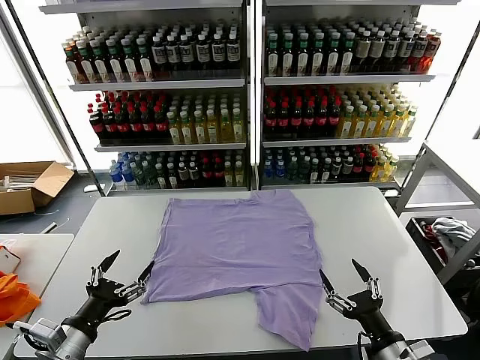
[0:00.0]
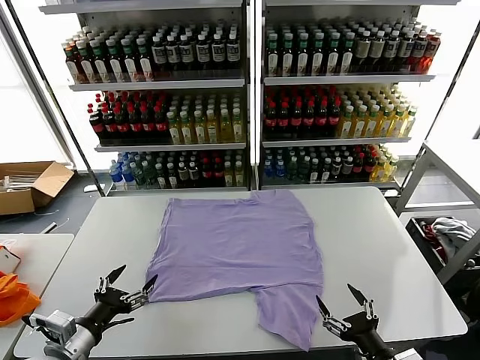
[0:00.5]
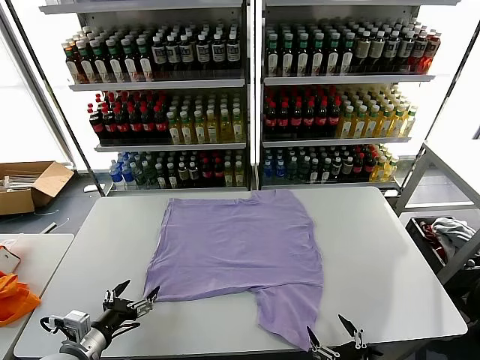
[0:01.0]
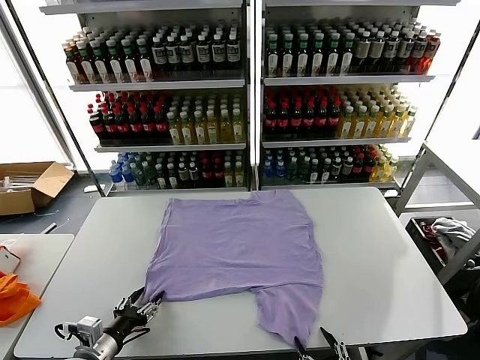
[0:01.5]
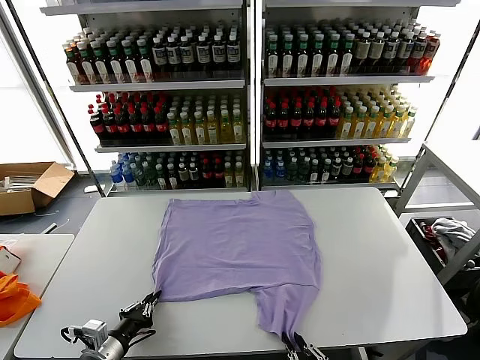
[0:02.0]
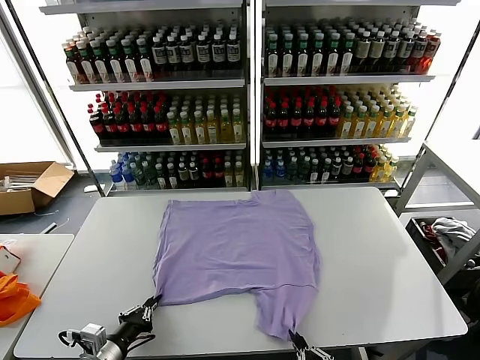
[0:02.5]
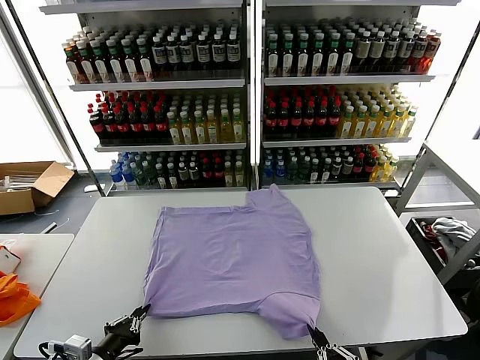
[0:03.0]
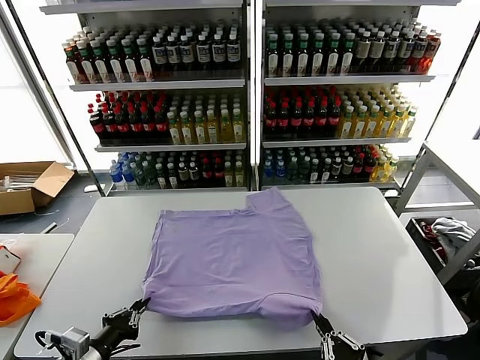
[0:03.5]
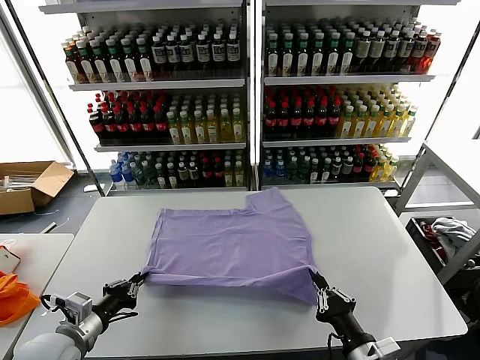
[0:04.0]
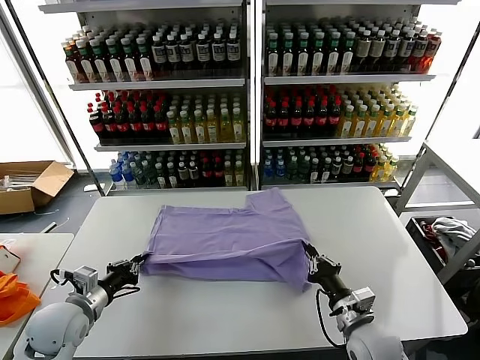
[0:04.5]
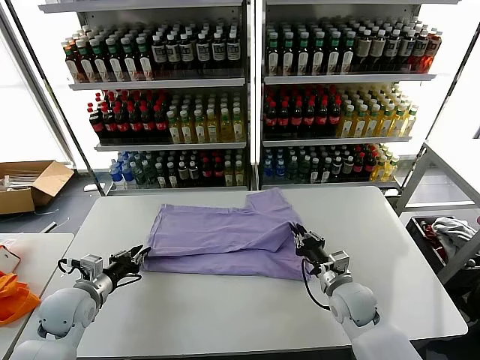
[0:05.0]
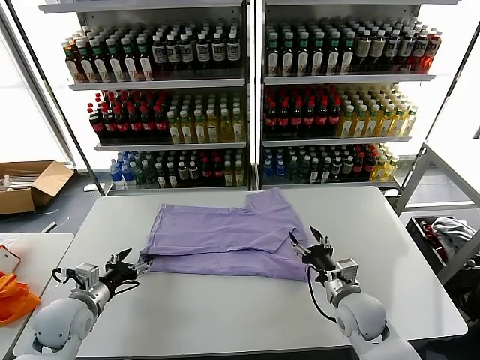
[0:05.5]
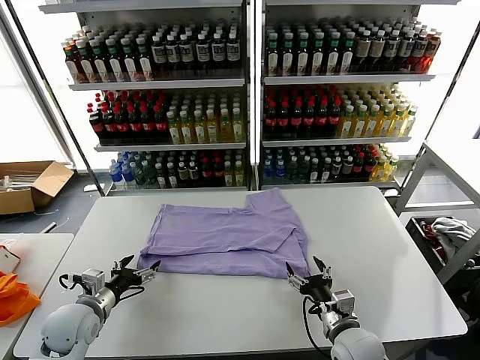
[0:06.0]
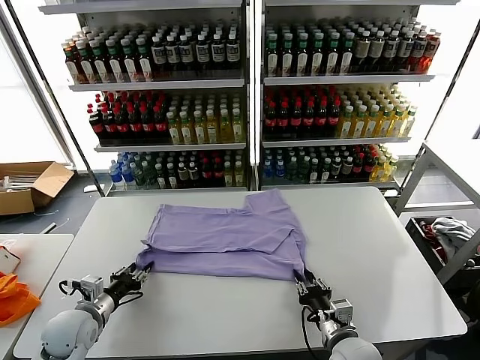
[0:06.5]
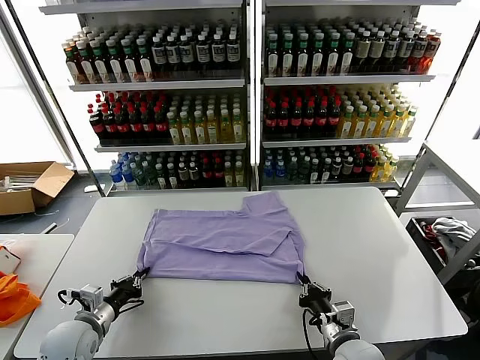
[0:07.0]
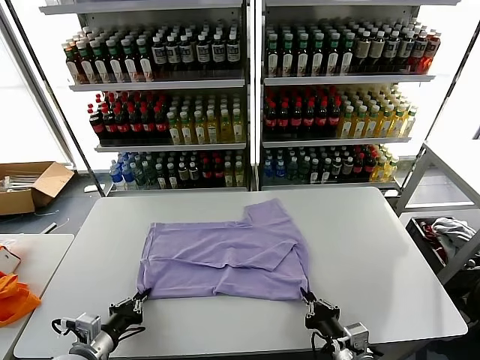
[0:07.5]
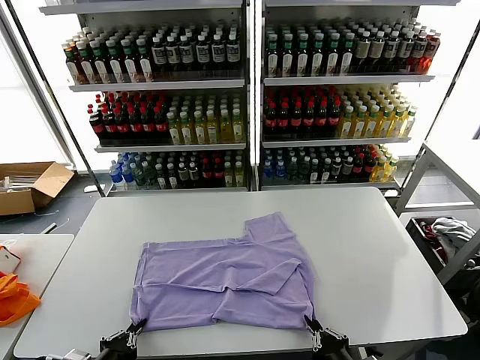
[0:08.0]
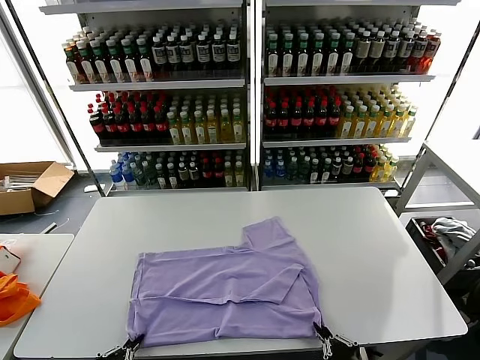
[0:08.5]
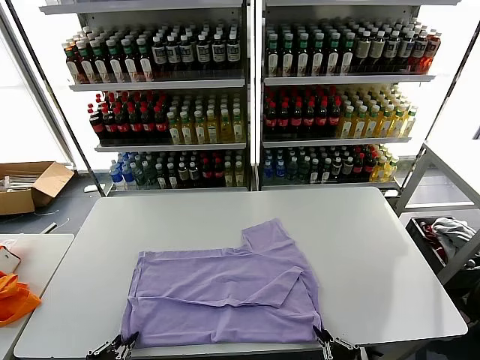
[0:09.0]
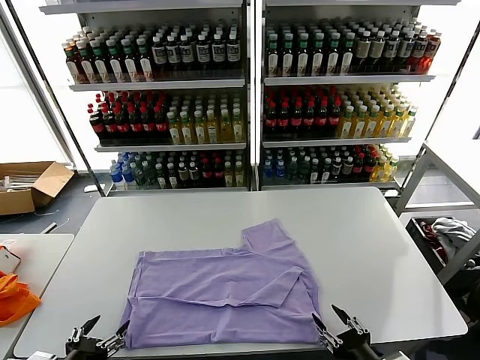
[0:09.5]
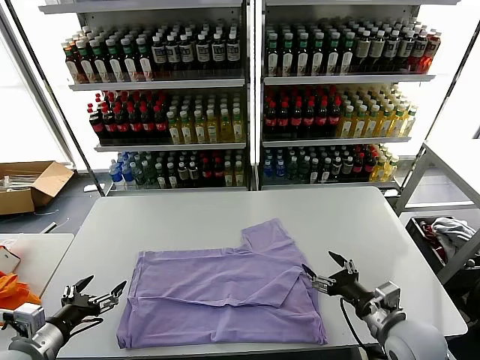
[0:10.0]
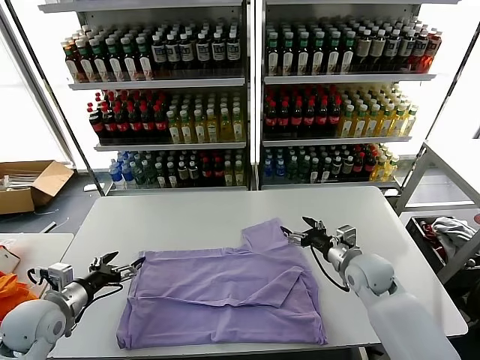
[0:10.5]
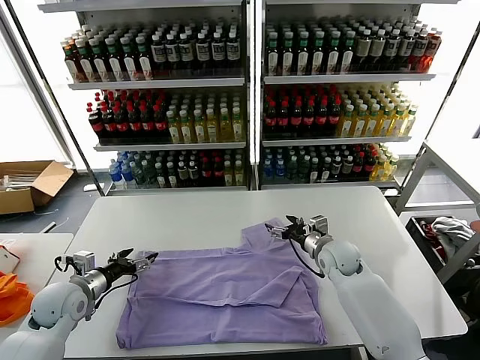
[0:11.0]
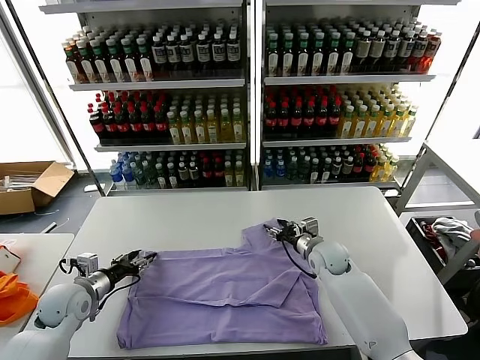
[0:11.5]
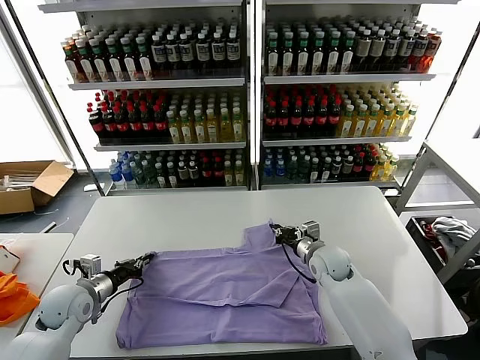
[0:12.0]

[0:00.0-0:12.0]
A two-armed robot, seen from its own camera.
Task of the whole recording: fold and organize the clothes.
Step, 0.0 to 2.0 s: use both grippers simultaneously to clamp the lower edge of the clothing fabric.
Step, 2.5 to 5.0 s: use both grippers to drag the lower edge of the fabric forward and fold it over the upper edge.
Step, 5.5 to 9.5 s: Drag the clothes downward with both gripper.
2.0 to 4.0 s: The right gripper shifts roughly 10 cm forward, while the left gripper is displaced upward by roughly 5 cm.
4.0 to 6.0 s: The grippers both shift forward by approximately 5 cm. The left gripper opens up. The right gripper opens its fingers.
6.0 to 8.0 s: The grippers both shift backward by approximately 15 cm. The right gripper closes its fingers. Meanwhile the left gripper closes its fingers.
8.0 to 10.0 s: The left gripper heads to the left, forward and upward, covering approximately 10 cm, and opens its fingers; the right gripper shifts about 15 cm forward, and opens.
10.0 to 12.0 s: The left gripper goes some 15 cm forward and downward, and closes up; the right gripper shifts some 20 cm forward and to the left, and closes its fingers.

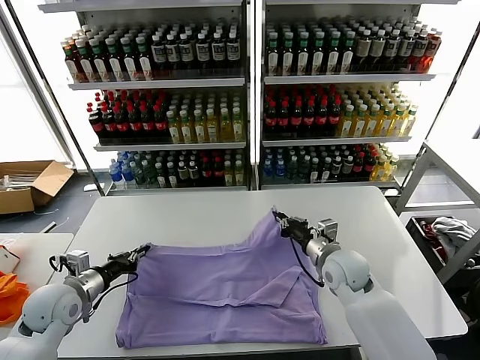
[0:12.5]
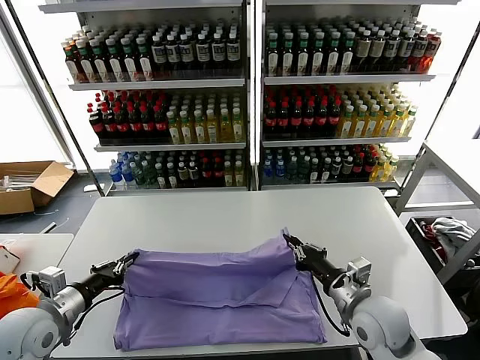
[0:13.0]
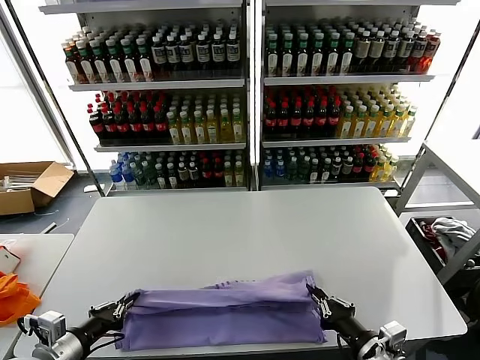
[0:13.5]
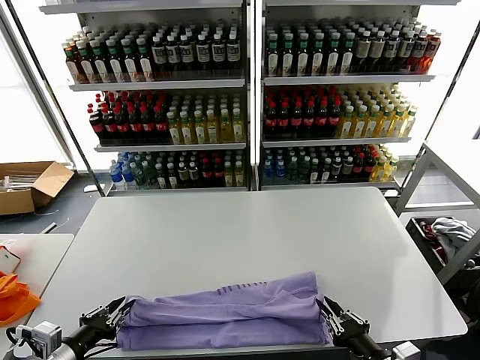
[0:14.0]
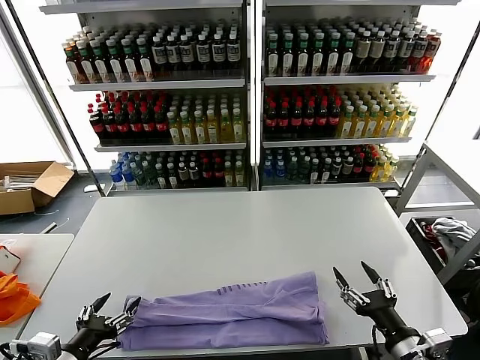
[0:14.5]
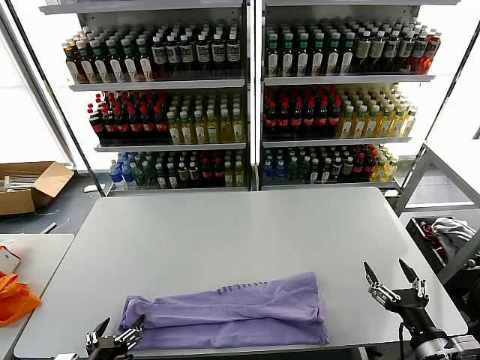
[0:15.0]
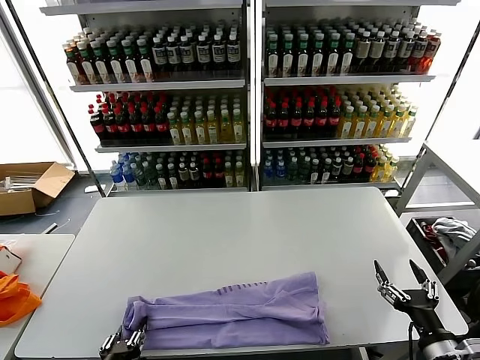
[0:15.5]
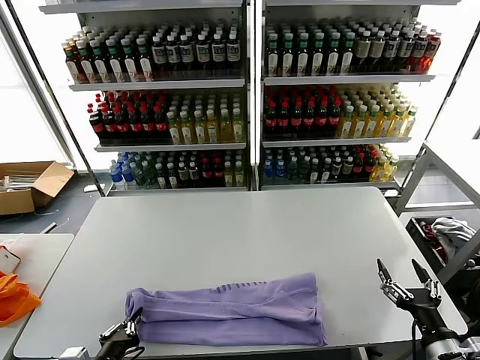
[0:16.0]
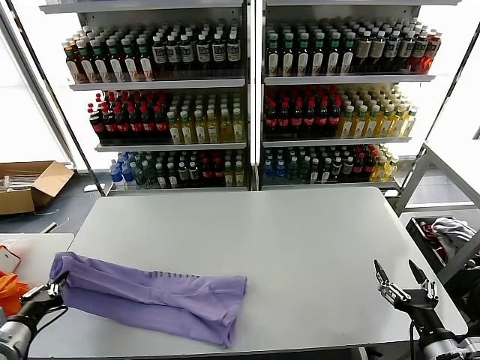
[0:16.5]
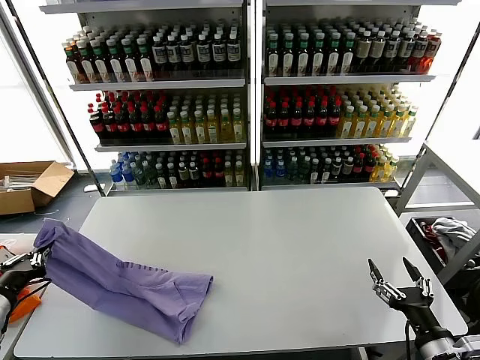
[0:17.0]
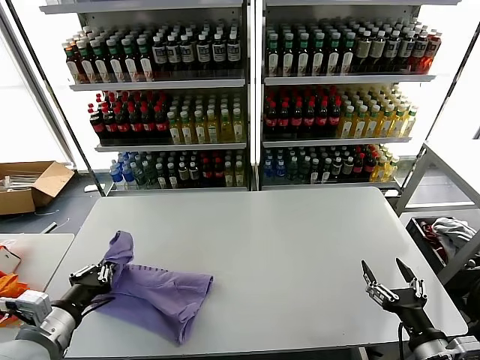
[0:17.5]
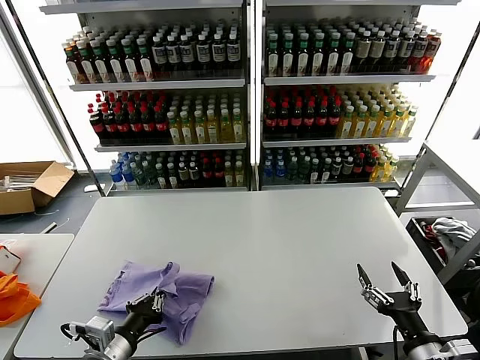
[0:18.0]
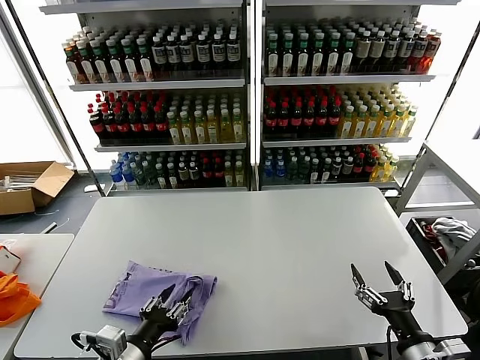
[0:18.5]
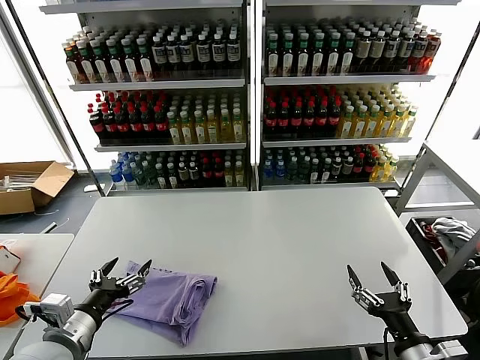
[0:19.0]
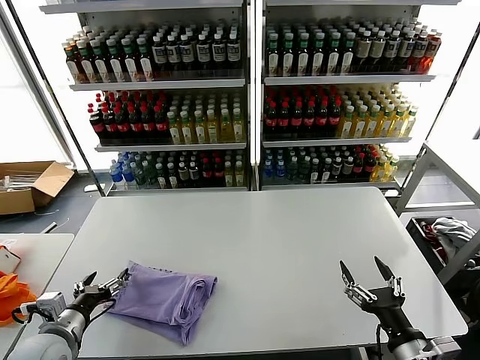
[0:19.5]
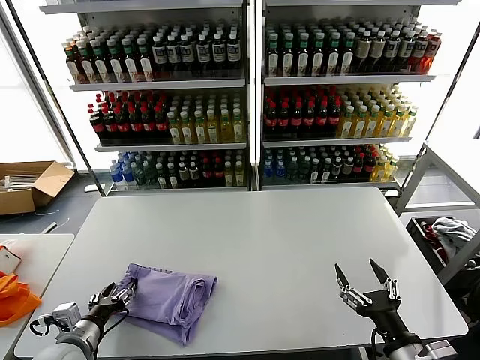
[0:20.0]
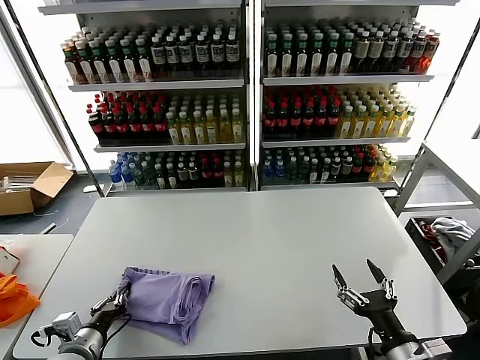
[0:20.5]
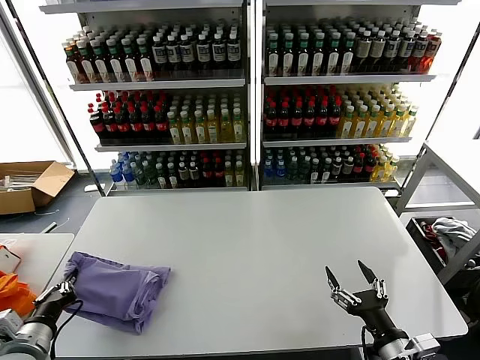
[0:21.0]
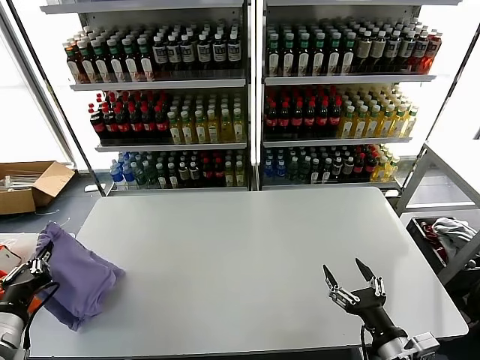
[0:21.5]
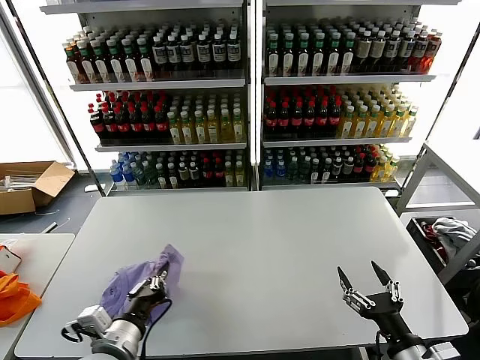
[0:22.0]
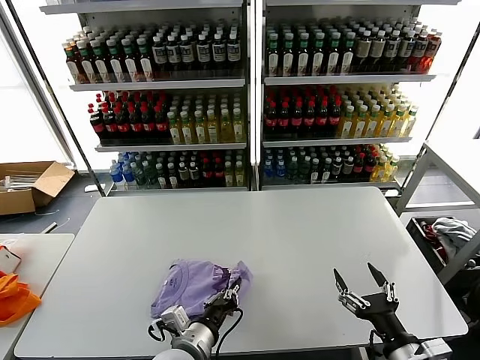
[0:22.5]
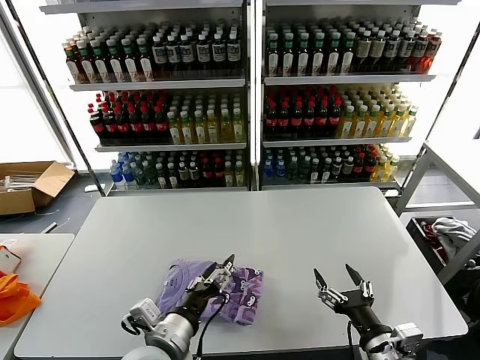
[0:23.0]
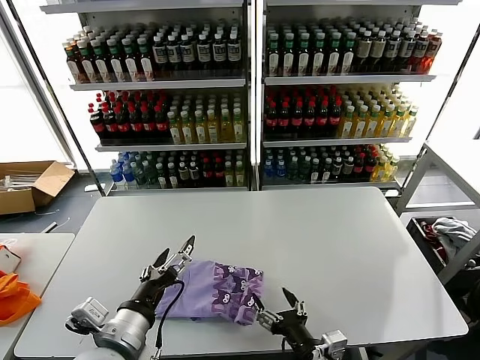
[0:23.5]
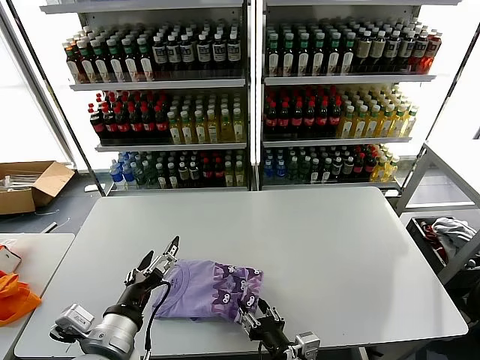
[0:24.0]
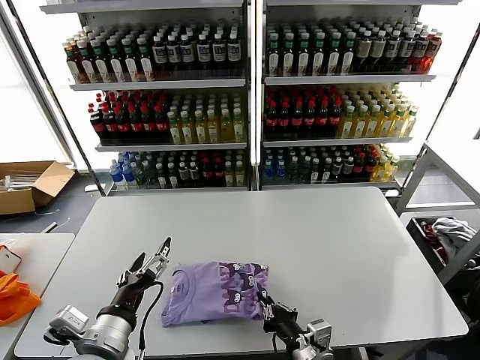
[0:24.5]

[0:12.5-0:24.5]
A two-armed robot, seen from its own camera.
Task of the whole recording: fold and organize the clothes.
Step, 12.5 to 14.0 s: use both grippers to drag the upper edge of the fabric backward and fold it over the lower edge.
Step, 14.5 to 15.5 s: use the left gripper to clamp the left edge of the fabric.
Step, 16.0 to 18.5 s: use the left gripper to drag the left edge of the fabric to the left and folds it over the right edge.
Step, 19.0 to 22.5 s: Flip the folded clothes over with left gripper.
12.5 to 14.5 s: The right gripper goes approximately 25 cm backward and to the right, and opens up. Meanwhile the left gripper shifts about 20 cm backward, and opens up.
14.5 to 16.5 s: The left gripper shifts some 10 cm to the left, and closes its fingers.
16.5 to 18.5 s: The left gripper moves to the right, about 20 cm, and opens its fingers.
18.5 to 20.5 s: The left gripper travels to the left and downward by some 15 cm, and opens and closes again.
20.5 to 22.5 s: The left gripper is displaced to the right by approximately 20 cm.
22.5 to 24.5 s: The left gripper travels to the left and upward by roughly 15 cm, and opens, while the right gripper travels to the left by approximately 15 cm, and closes its fingers.

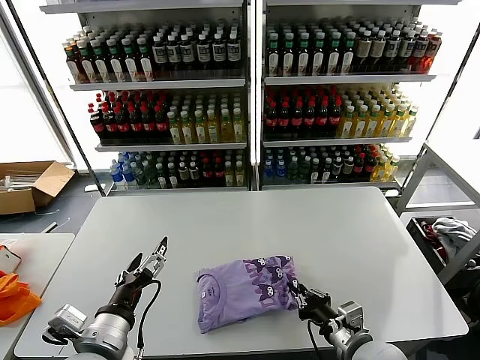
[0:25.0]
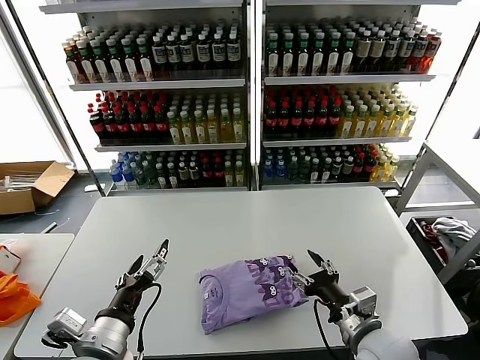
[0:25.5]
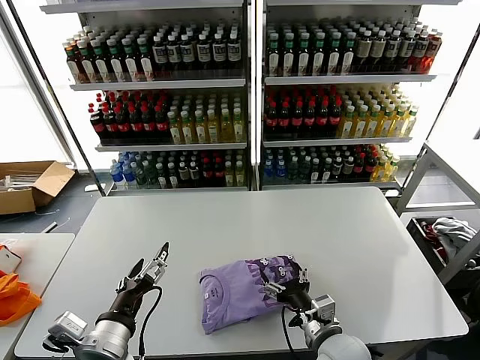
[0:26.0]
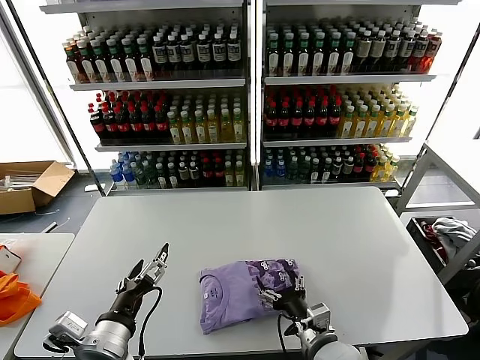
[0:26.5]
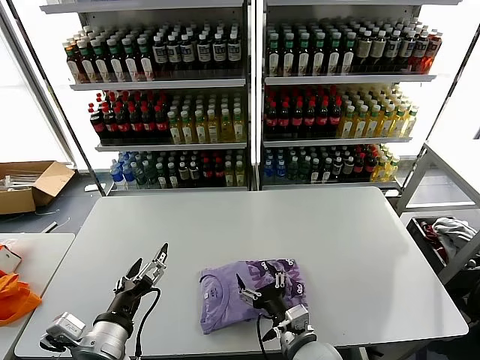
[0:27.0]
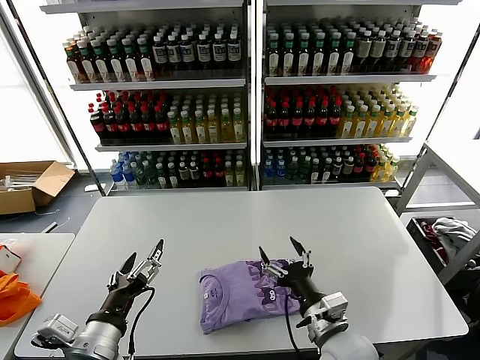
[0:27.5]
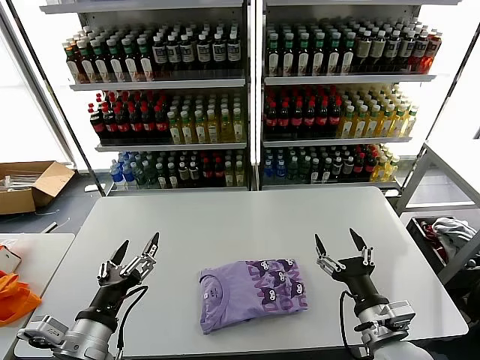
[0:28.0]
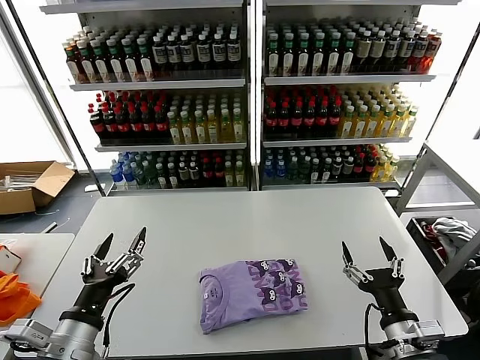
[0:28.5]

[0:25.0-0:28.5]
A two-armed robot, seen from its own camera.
Task of the whole recording: fold and organize the clothes.
25.0 to 27.0 s: The right gripper moves to the left, some 10 cm, and opens up.
27.0 to 28.5 s: The right gripper heads to the right and upward, covering some 15 cm.
